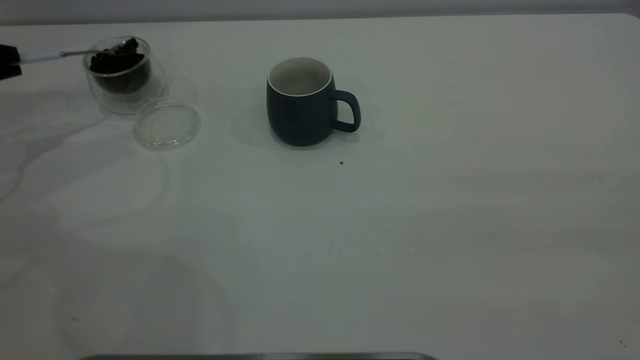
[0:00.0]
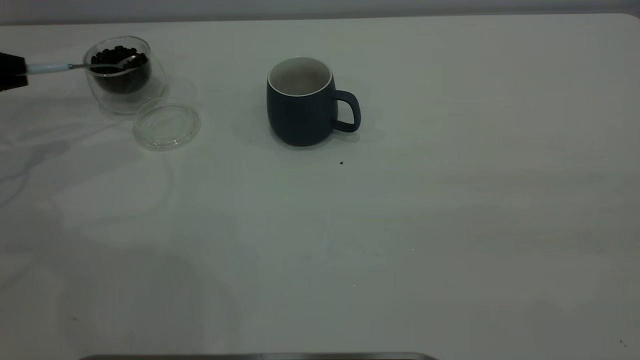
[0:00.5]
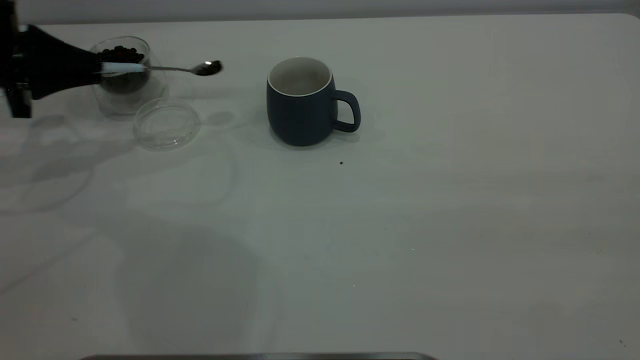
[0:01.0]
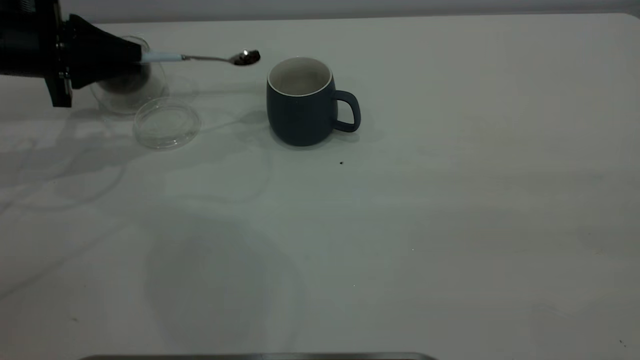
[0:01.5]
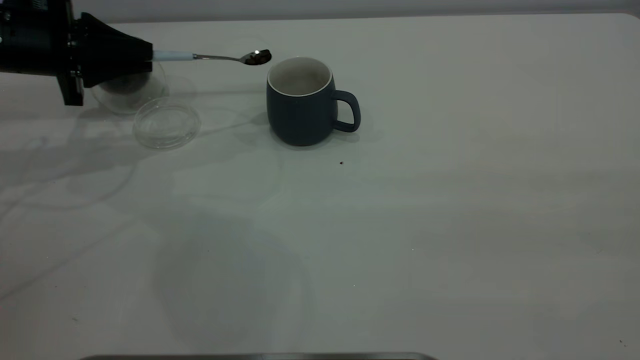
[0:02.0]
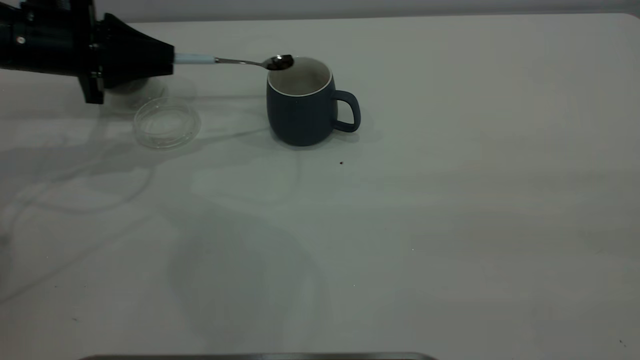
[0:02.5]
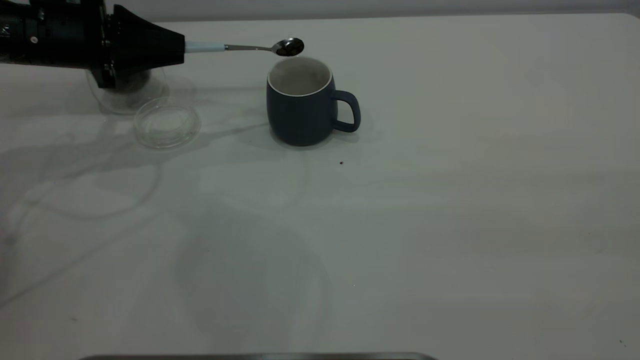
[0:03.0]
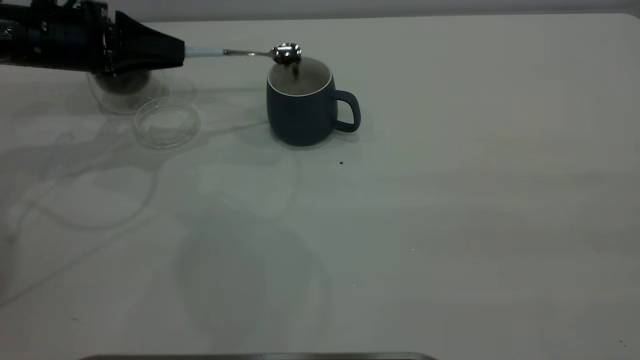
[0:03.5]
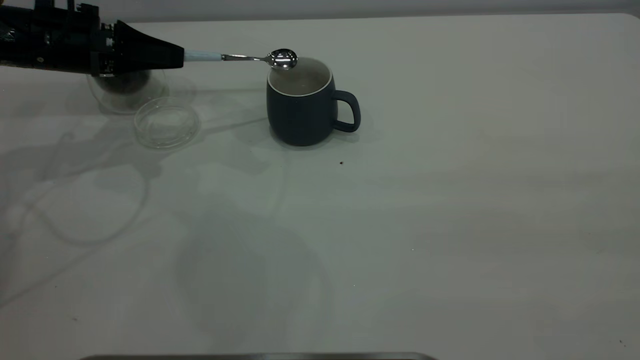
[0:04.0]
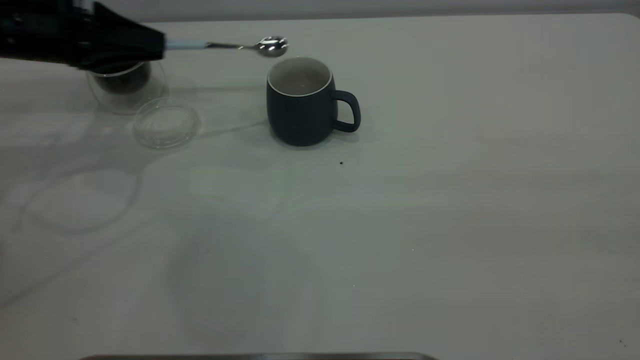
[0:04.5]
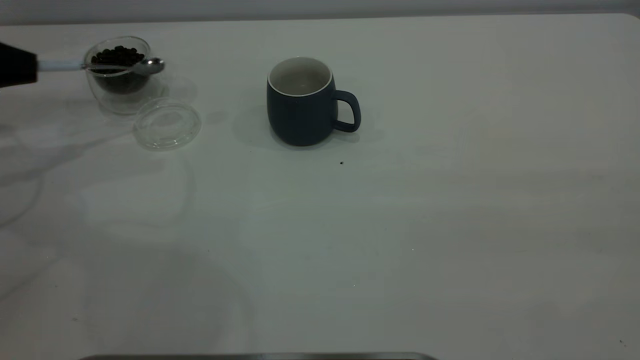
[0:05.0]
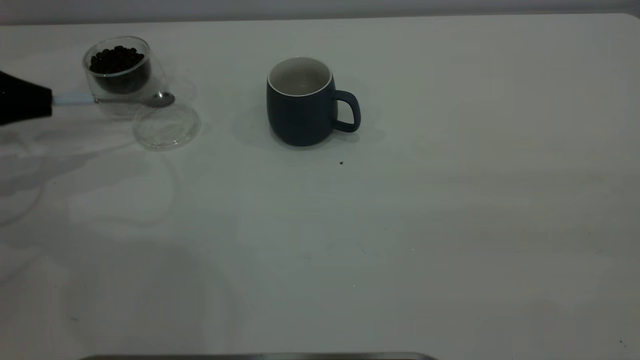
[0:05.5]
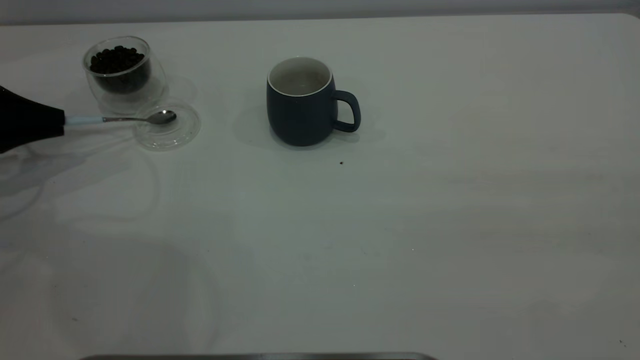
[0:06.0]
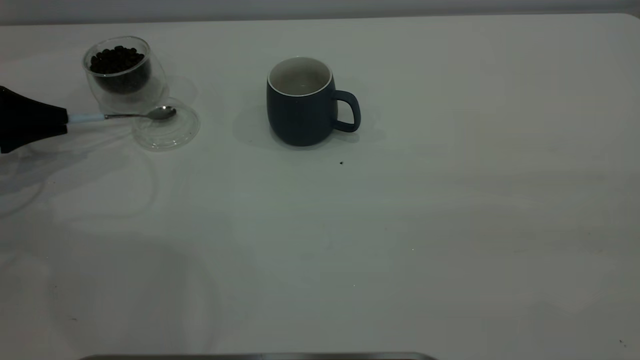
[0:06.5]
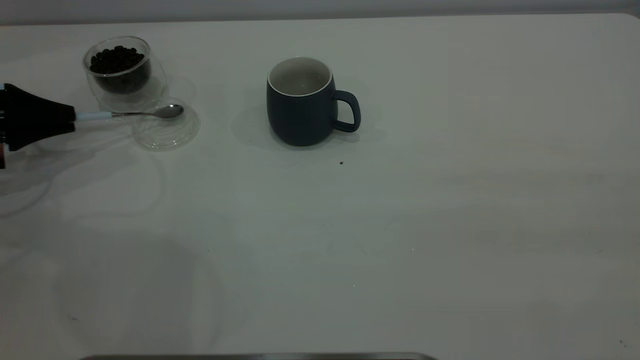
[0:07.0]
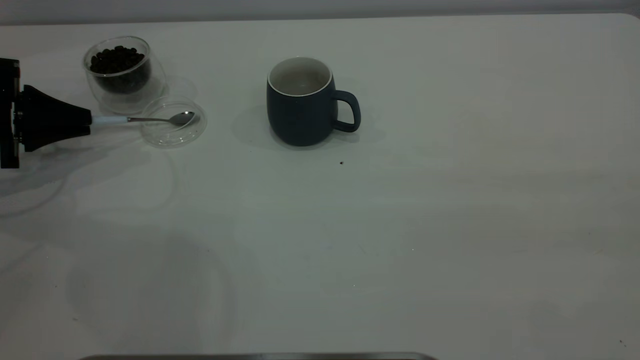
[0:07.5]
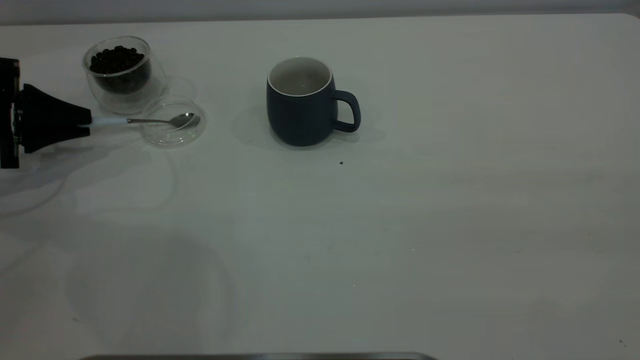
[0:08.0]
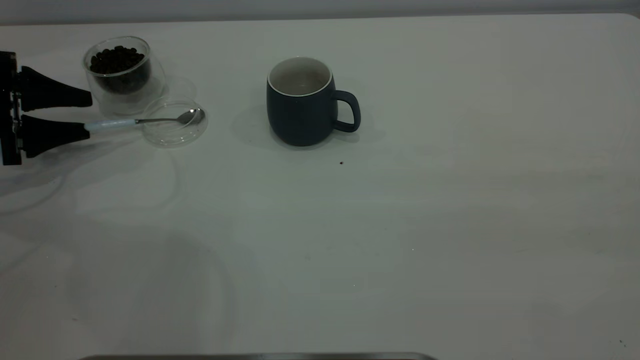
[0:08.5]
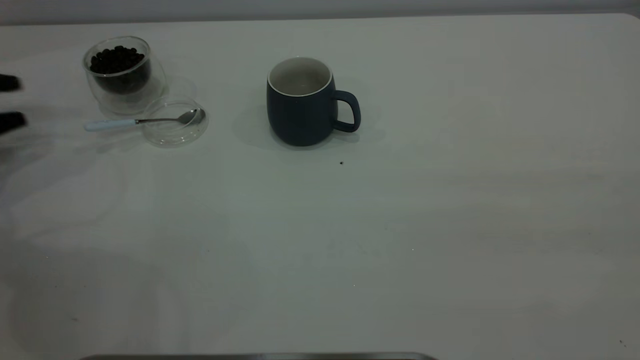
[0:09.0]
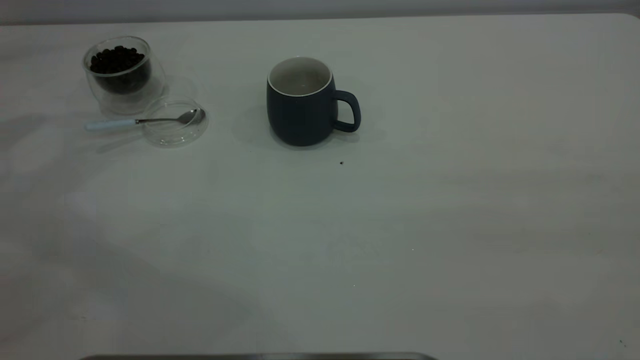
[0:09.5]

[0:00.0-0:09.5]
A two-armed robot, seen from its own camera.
Task of the whole recording: the right gripper place the grey cup in the center of the table, the left gripper take the blue spoon from the cup lid and scoop out the coffee beans from the coffee cup and put them into the grey cup, the left gripper put the spoon back into the cup lid.
Step, 0:00.0 to 0:04.0: Scoop a spoonful of beans into the cup.
Step, 0:04.5 to 0:09.0: Place the spoon back in its original place.
0:00.0 to 0:02.0: The left gripper moves to the right, roughly 15 cm.
0:04.0 to 0:05.5: The left gripper moves to the left, about 15 cm.
0:05.5 to 0:07.5: The grippers move only a little.
0:07.5 to 0:09.5: The left gripper shifts roughly 20 cm upward, and opens up.

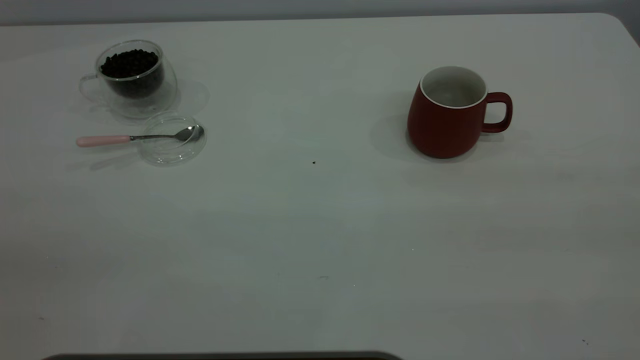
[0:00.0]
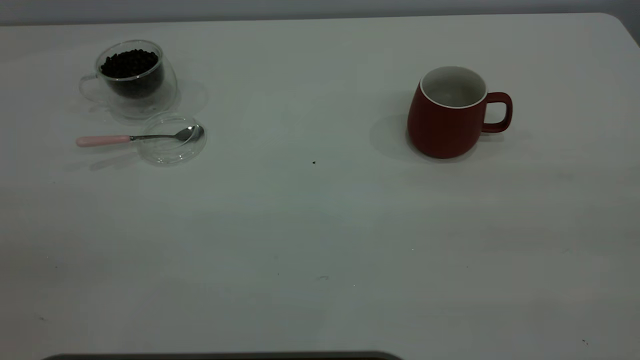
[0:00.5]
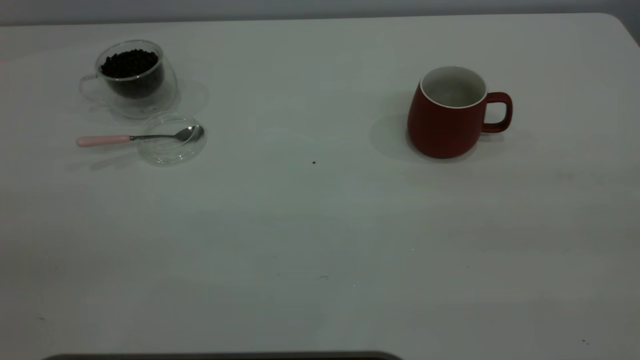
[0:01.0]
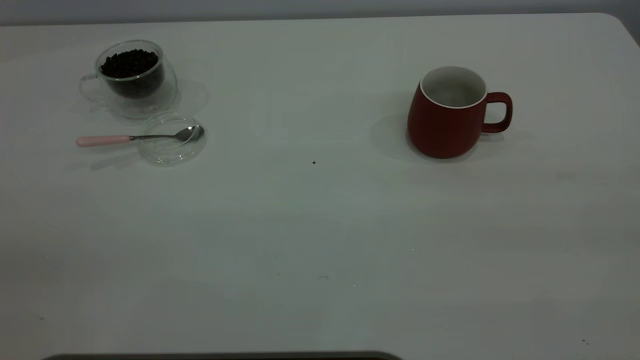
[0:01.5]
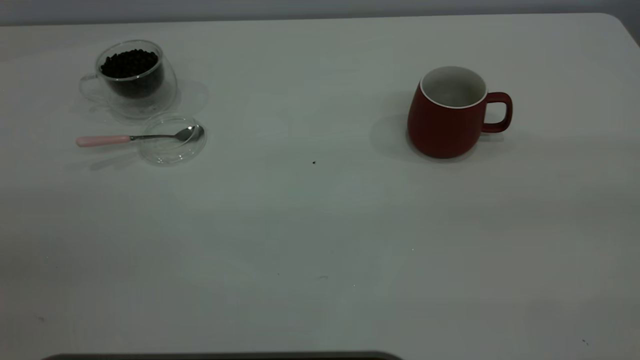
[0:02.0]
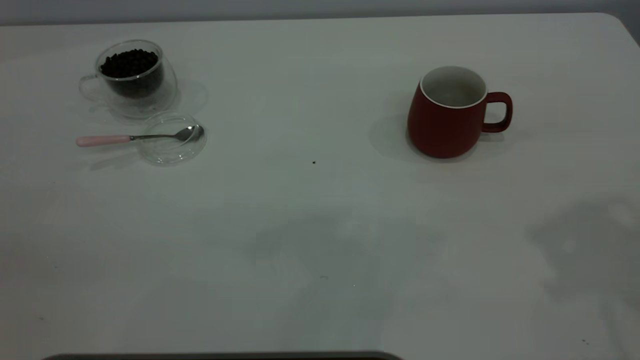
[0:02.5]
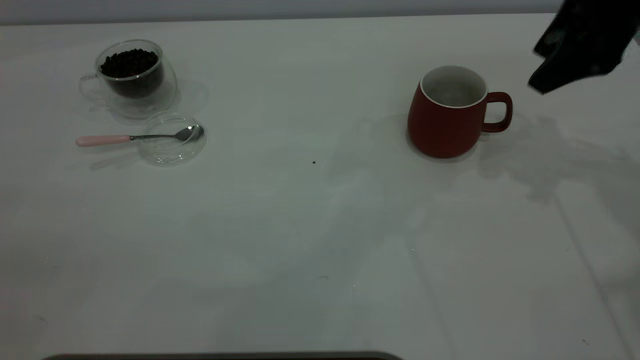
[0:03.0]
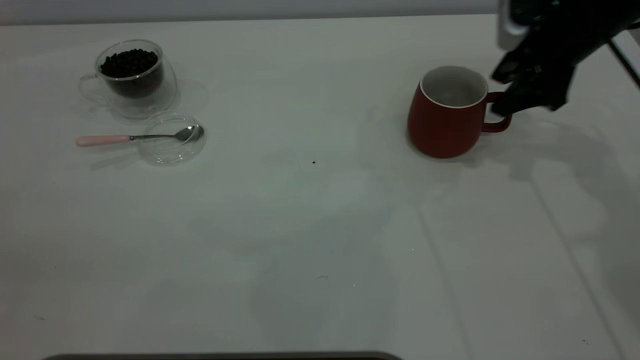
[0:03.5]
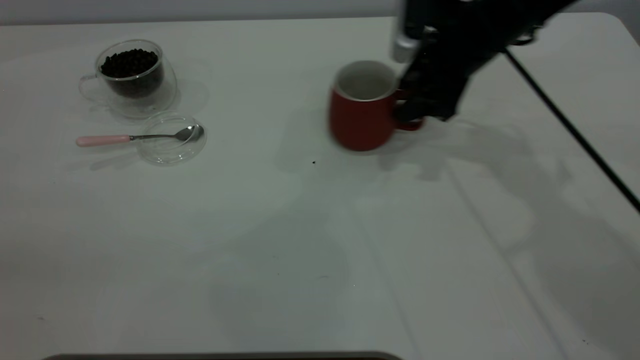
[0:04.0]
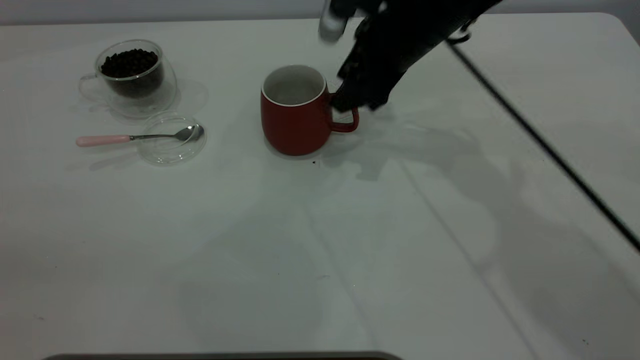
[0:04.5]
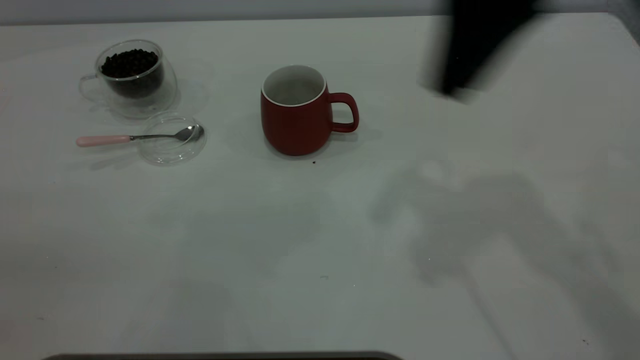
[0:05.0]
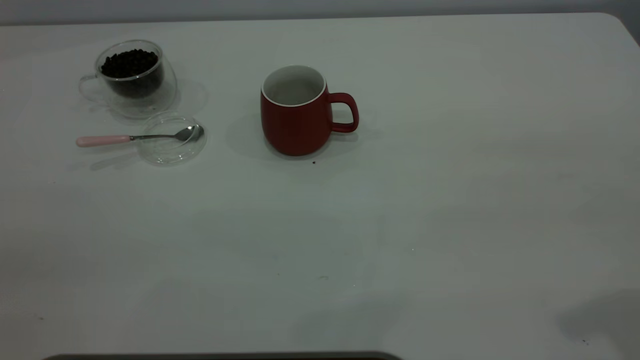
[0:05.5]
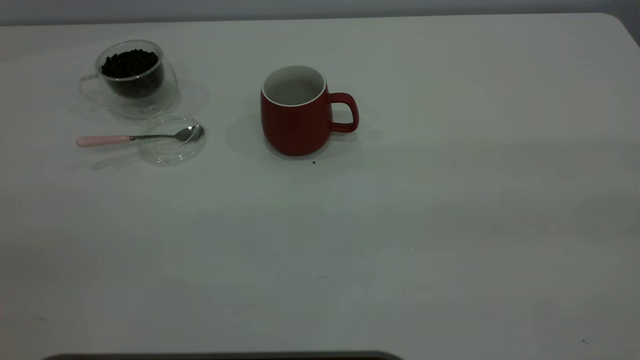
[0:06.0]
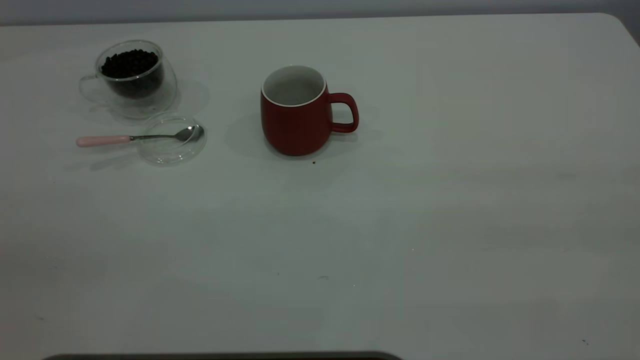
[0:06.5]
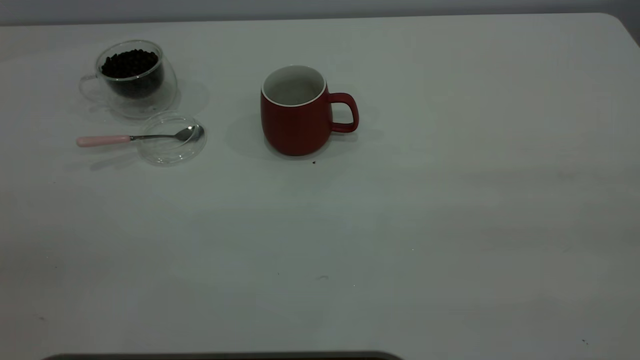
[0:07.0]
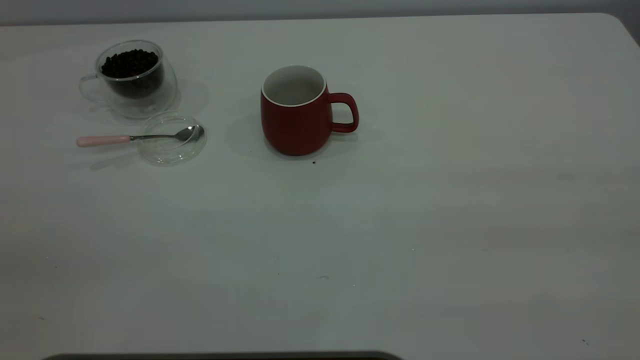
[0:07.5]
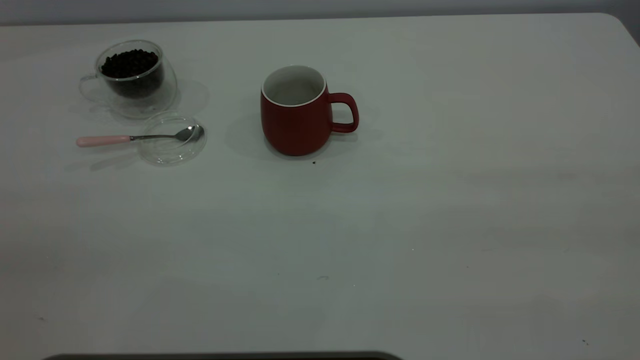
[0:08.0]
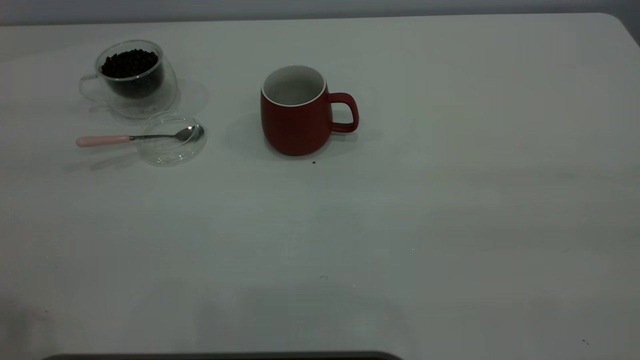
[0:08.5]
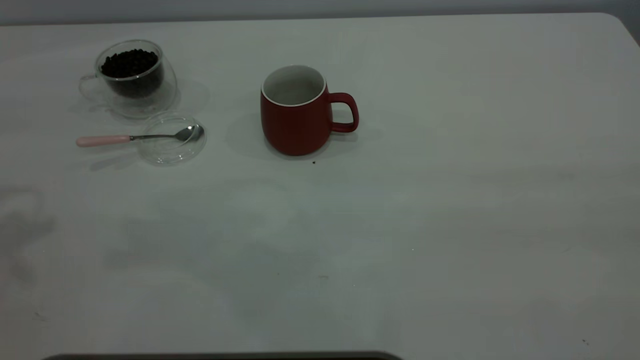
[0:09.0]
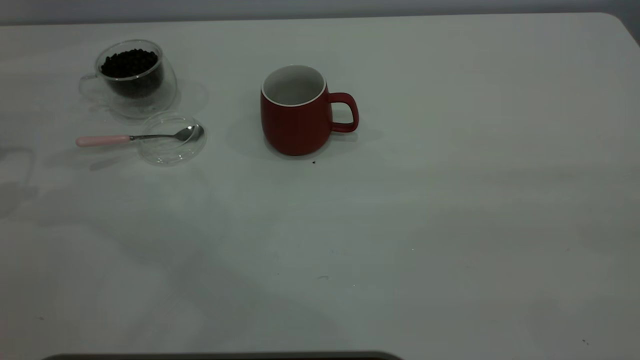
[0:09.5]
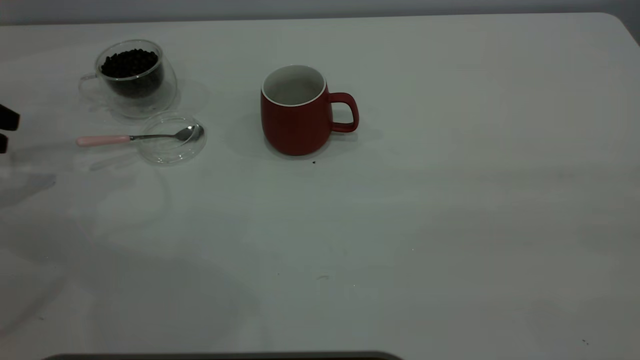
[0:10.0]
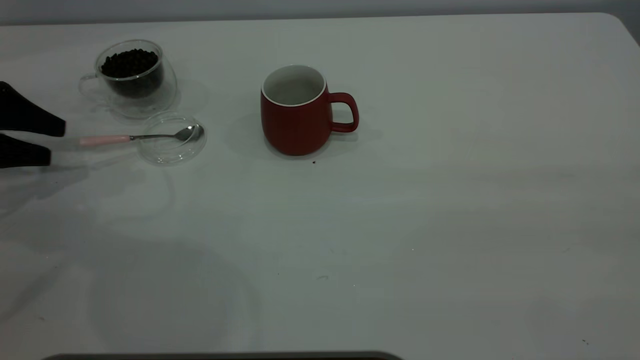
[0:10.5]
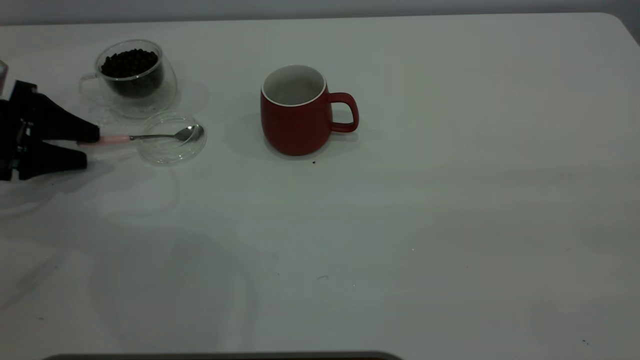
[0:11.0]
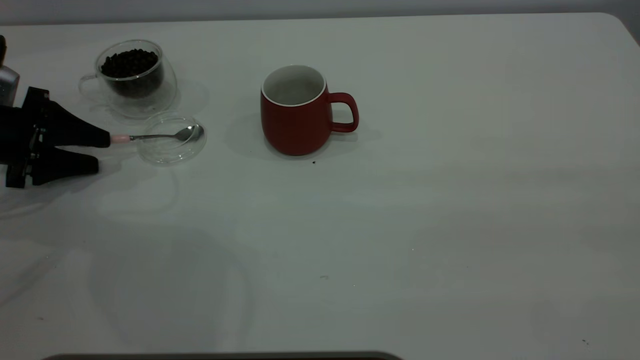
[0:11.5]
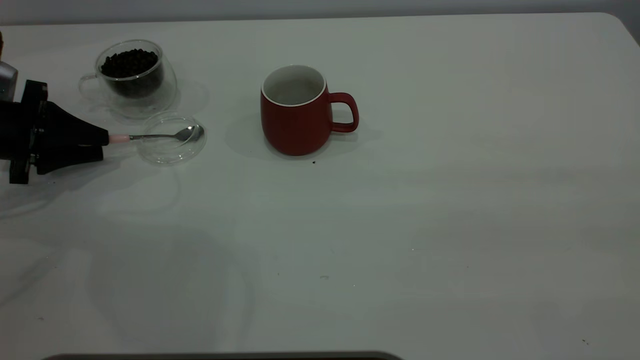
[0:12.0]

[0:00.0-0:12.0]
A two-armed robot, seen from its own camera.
Task of the whole recording: the right gripper place the red cup in the center of the table, the left gripper take the pink spoon from the cup lid and scoop out the coffee beans from the coffee cup and put them into the red cup, the left gripper put the spoon back into the cup lid.
Step, 0:00.0 to 0:04.5: Move the cup to the center of view.
0:02.0 to 0:04.0: The right gripper shifts approximately 50 cm forward and downward, and closes.
0:04.0 to 0:06.0: The right gripper heads backward and upward, covering about 40 cm, and closes.
0:08.0 to 0:10.0: The left gripper heads forward, downward and to the left, covering some 40 cm.
0:10.0 to 0:12.0: The left gripper is displaced downward and to the right by roughly 10 cm.
